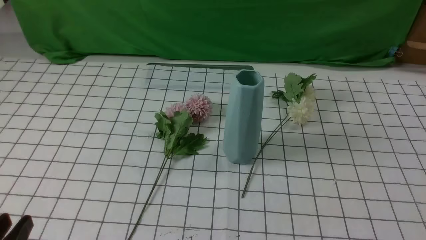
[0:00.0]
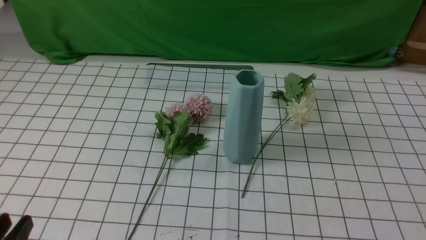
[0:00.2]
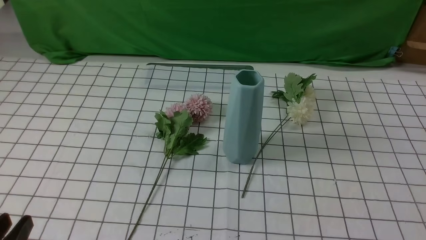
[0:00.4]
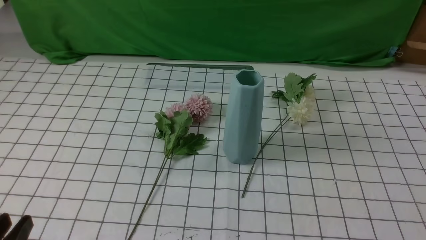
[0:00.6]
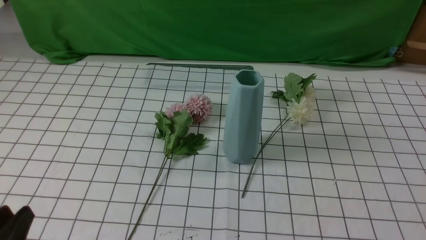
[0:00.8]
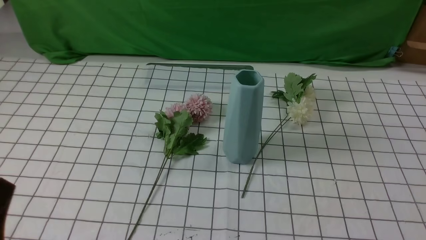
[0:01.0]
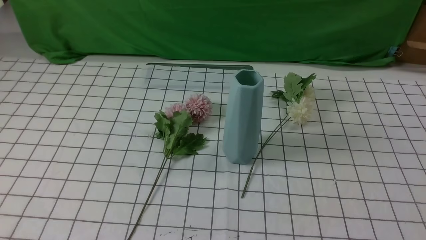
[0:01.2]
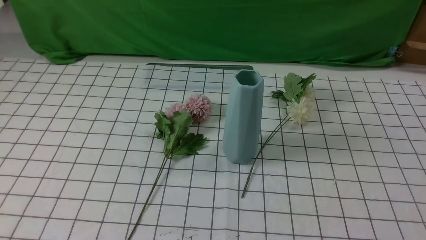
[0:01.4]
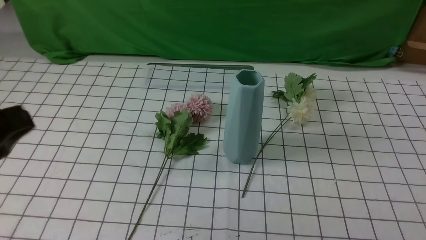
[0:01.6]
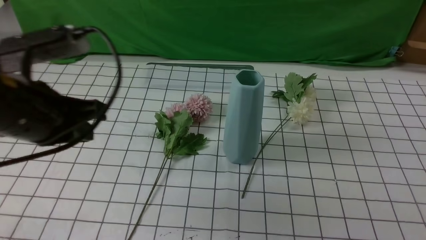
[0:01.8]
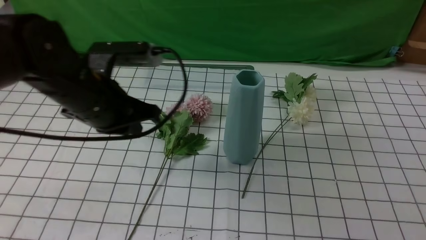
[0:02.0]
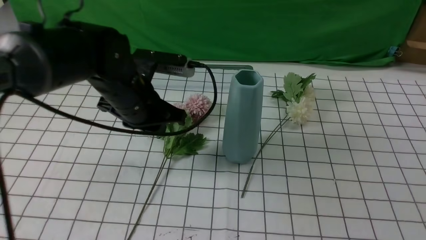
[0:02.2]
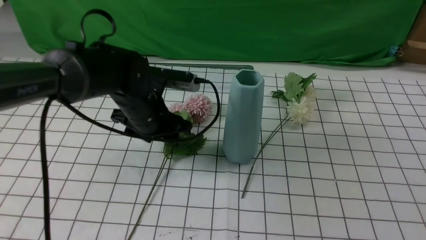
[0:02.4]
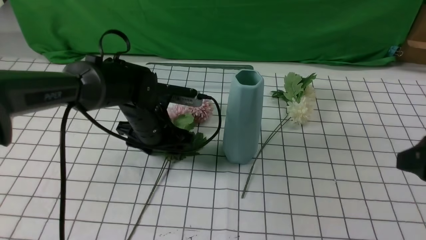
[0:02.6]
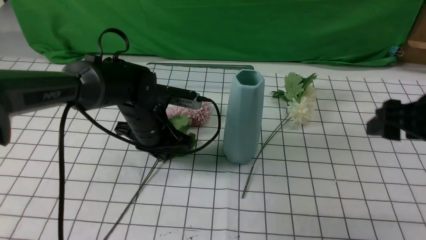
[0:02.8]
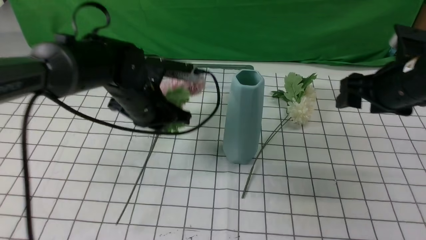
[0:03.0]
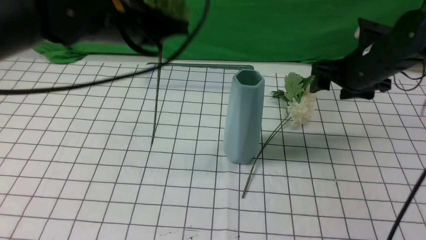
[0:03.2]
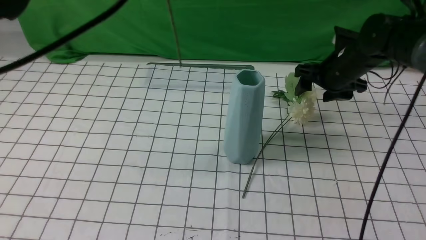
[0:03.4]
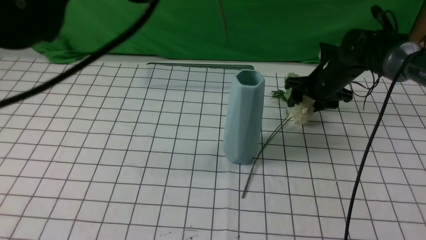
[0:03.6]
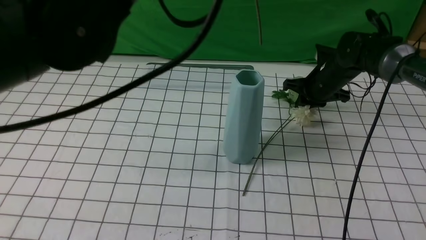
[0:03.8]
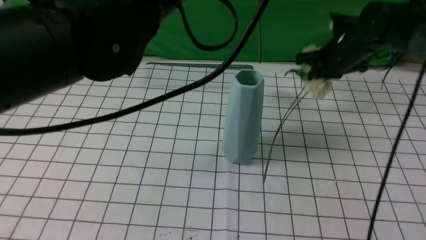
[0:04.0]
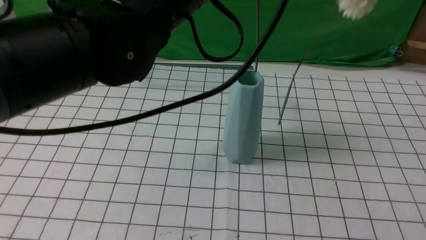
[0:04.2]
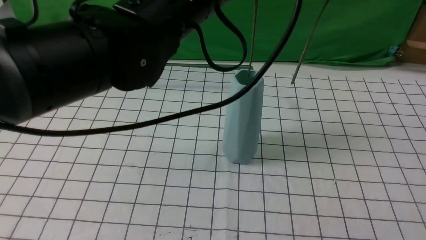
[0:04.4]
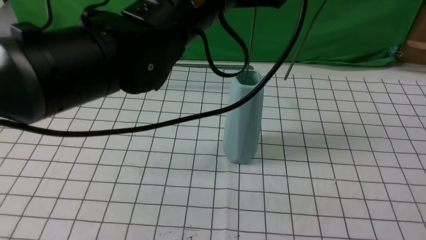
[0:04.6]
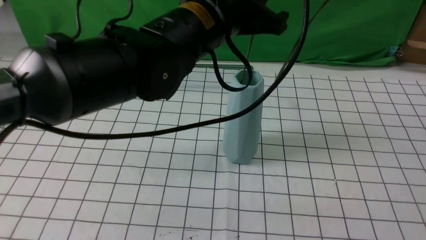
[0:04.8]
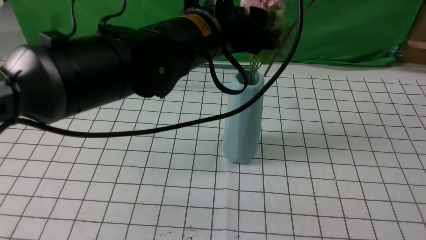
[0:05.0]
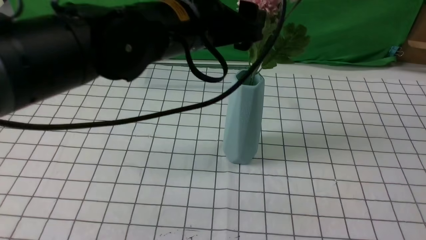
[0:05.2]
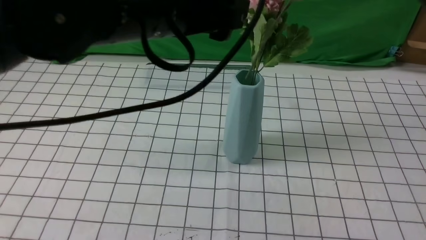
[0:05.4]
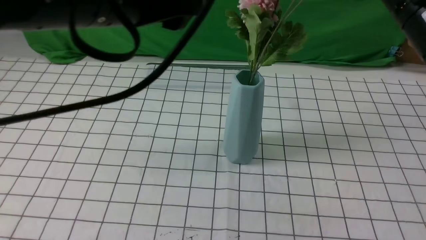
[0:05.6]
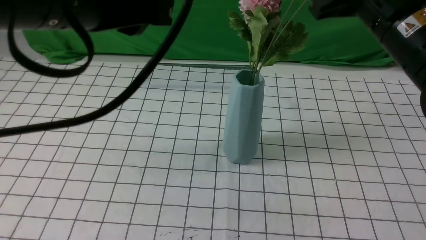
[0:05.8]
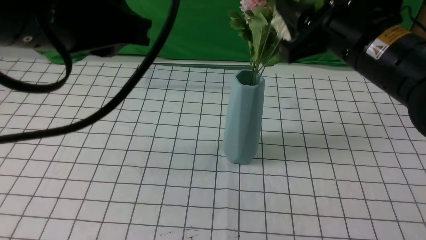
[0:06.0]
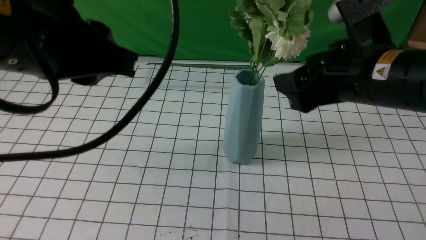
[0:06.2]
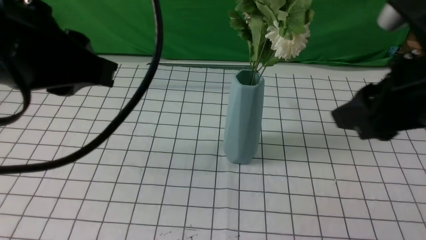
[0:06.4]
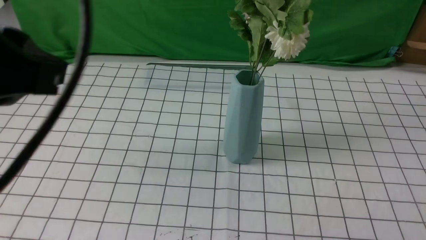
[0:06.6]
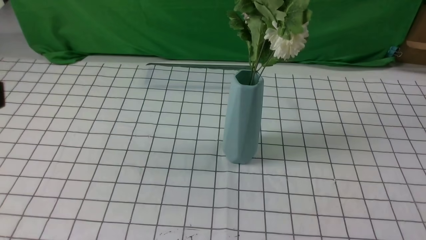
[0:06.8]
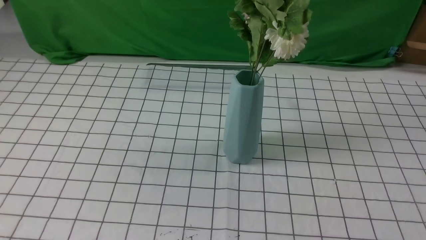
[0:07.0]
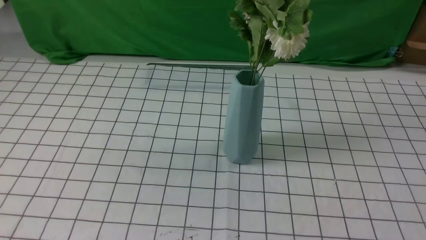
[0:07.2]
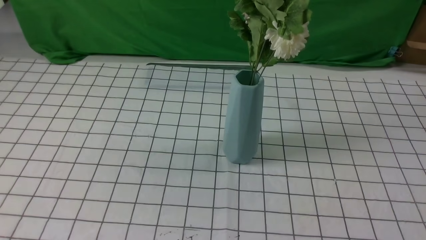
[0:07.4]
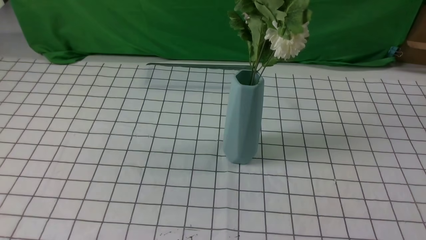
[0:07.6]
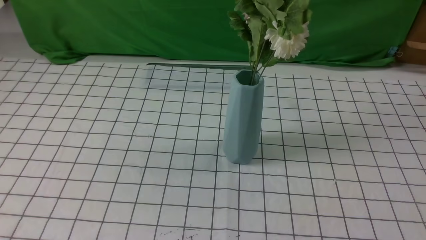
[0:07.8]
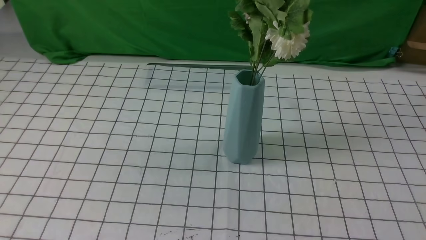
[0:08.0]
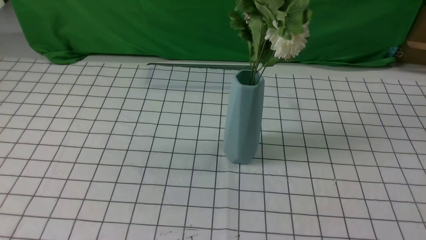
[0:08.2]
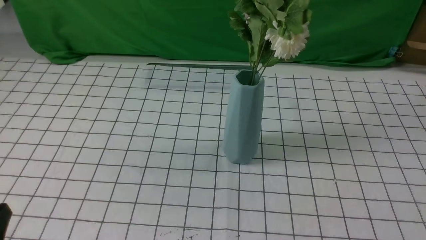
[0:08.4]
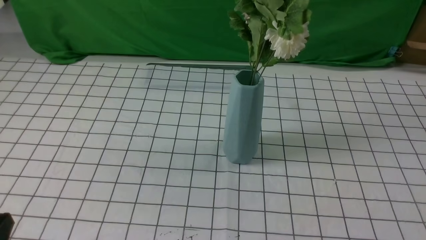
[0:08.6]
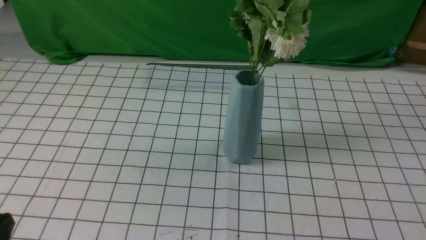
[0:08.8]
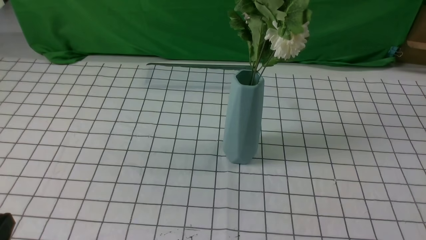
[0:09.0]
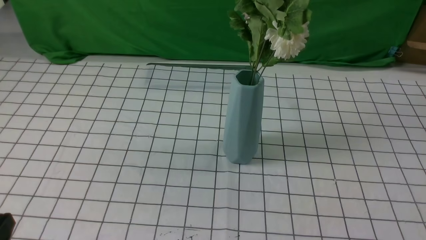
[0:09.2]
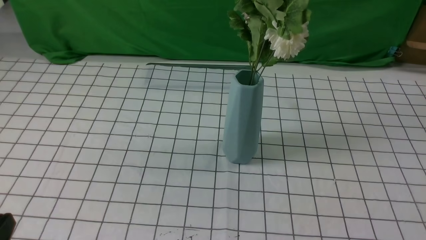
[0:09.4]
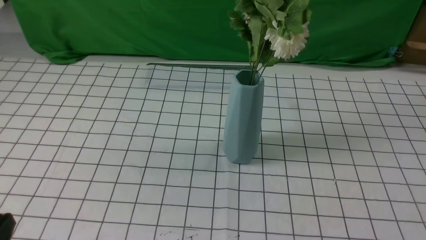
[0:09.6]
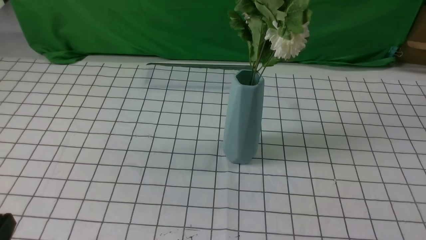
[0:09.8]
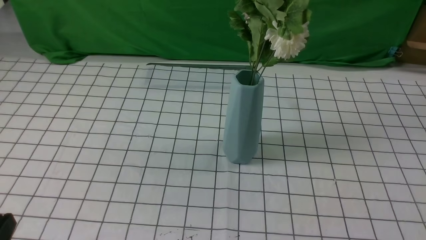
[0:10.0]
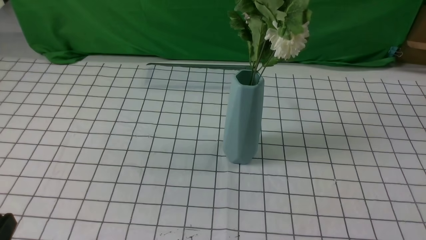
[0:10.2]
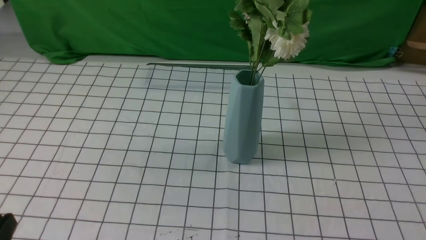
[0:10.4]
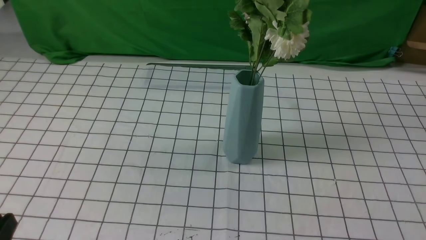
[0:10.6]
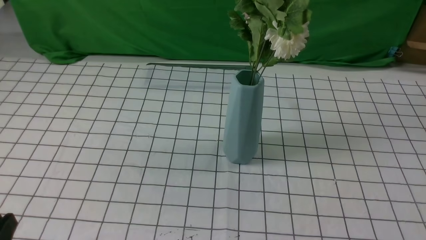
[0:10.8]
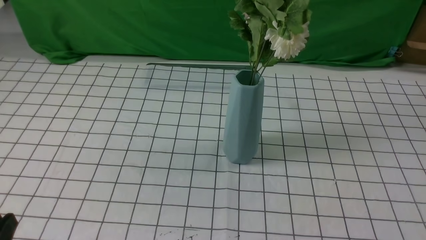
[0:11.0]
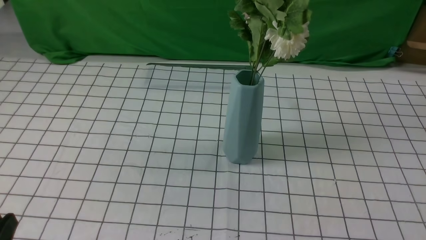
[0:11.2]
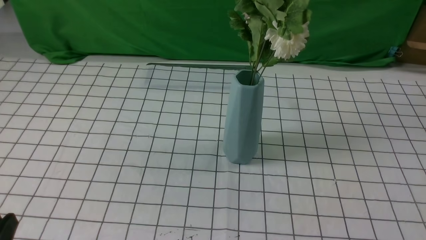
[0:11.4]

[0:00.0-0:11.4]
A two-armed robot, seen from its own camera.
Task of the whole recording: insert the flowers into the vase on the table with the white tablecloth.
Step, 0:00.0 to 0:06.2: Put the flowers in the vase with both hands.
0:00.0 to 0:01.4: The left gripper travels upward by some 10 cm, and closes its fingers.
0:01.4 to 0:02.8: The left gripper shifts approximately 35 cm forward, to the right and downward, and opens and closes again. Meanwhile the right gripper heads forward and upward, covering about 25 cm, and opens its fingers.
0:02.8 to 0:04.2: The left gripper heads upward, covering some 25 cm; the right gripper heads forward and upward, covering roughly 20 cm, and closes.
0:04.2 to 0:05.6: The right gripper goes approximately 10 cm backward; the left gripper shifts approximately 10 cm to the left and backward, and opens.
0:05.6 to 0:07.2: The right gripper heads backward, covering approximately 30 cm, and opens and closes again, while the left gripper heads backward and to the left, covering about 25 cm, and closes its fingers.
0:10.0 to 0:11.4: The two grippers keep their place.
